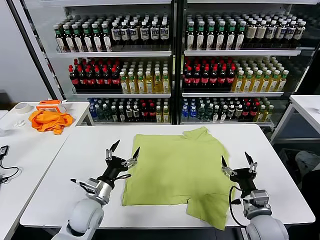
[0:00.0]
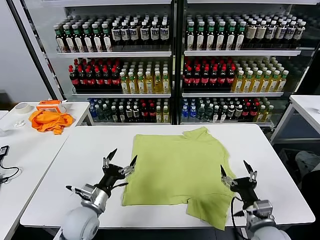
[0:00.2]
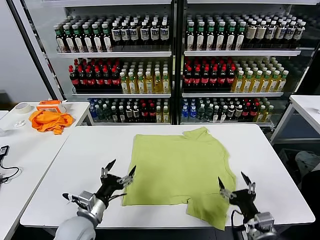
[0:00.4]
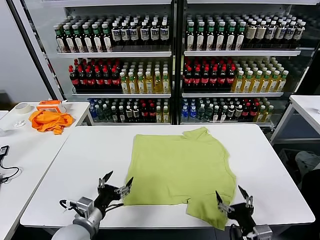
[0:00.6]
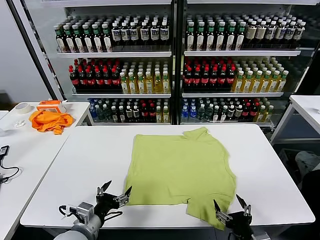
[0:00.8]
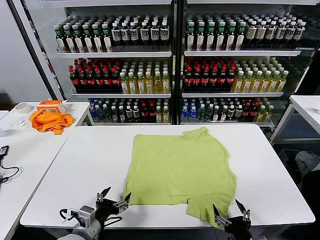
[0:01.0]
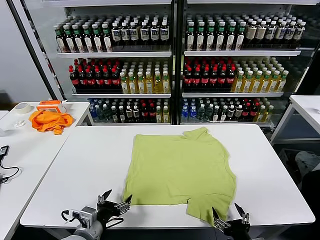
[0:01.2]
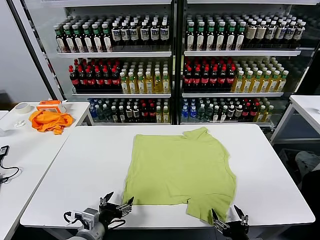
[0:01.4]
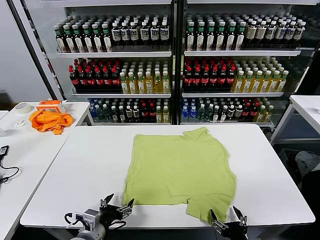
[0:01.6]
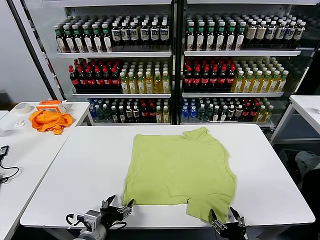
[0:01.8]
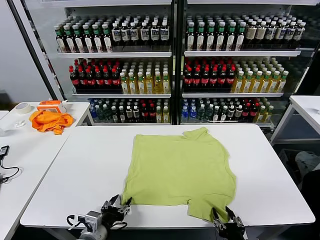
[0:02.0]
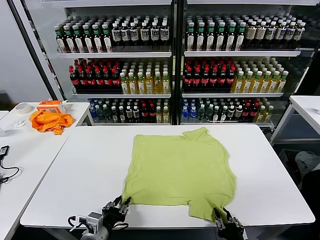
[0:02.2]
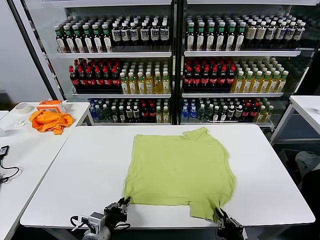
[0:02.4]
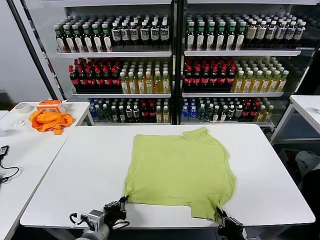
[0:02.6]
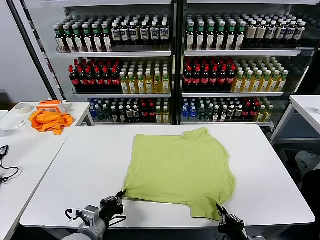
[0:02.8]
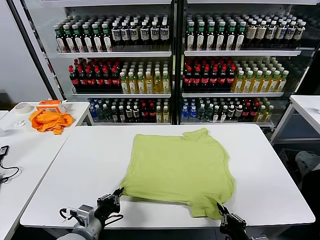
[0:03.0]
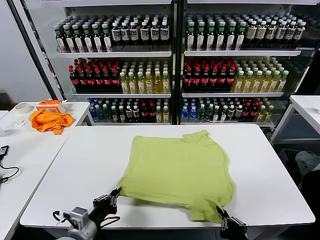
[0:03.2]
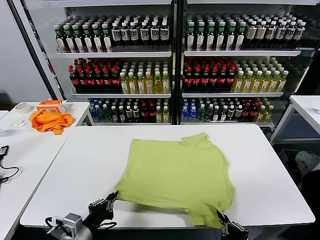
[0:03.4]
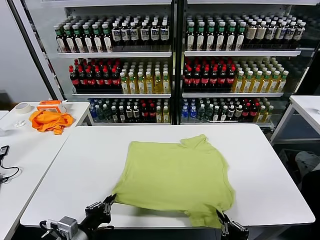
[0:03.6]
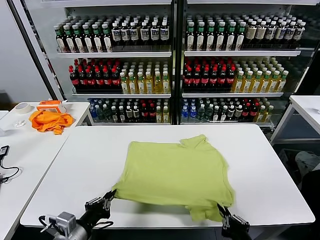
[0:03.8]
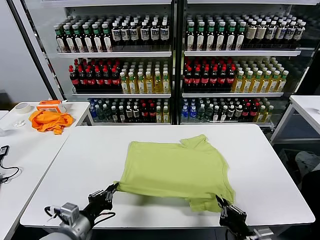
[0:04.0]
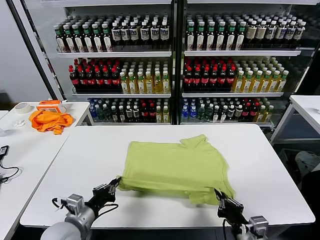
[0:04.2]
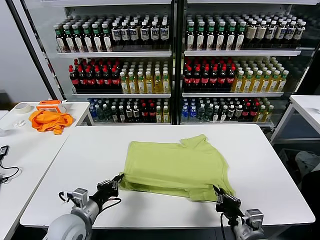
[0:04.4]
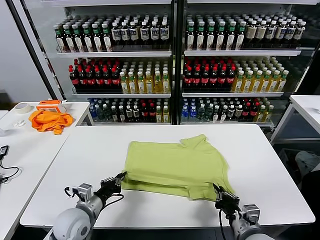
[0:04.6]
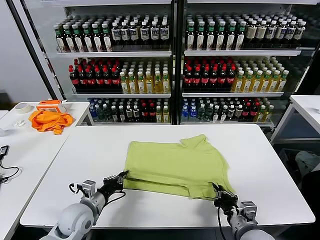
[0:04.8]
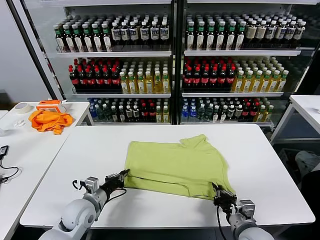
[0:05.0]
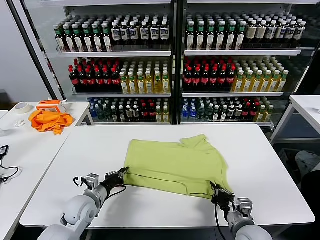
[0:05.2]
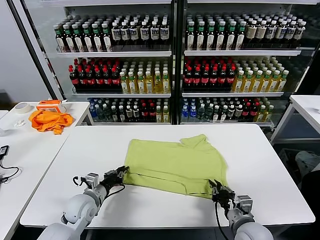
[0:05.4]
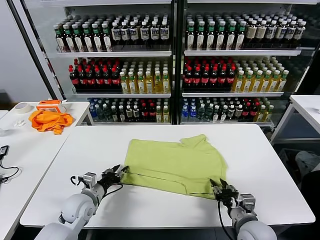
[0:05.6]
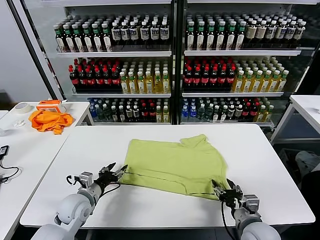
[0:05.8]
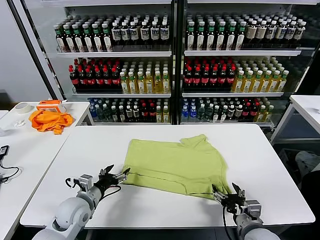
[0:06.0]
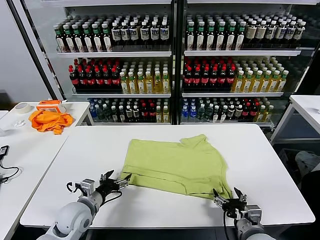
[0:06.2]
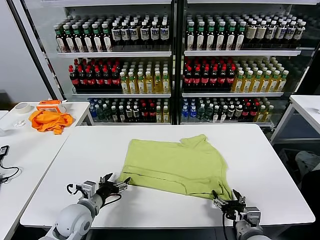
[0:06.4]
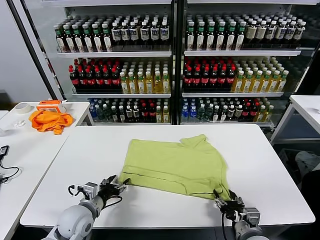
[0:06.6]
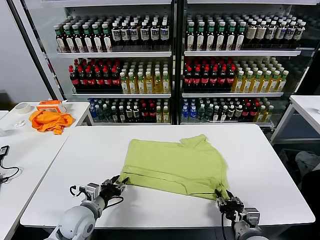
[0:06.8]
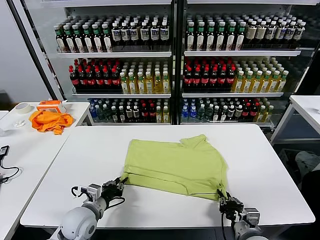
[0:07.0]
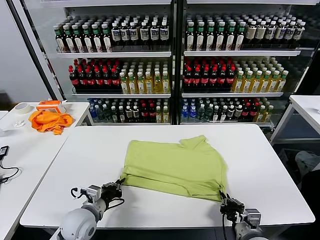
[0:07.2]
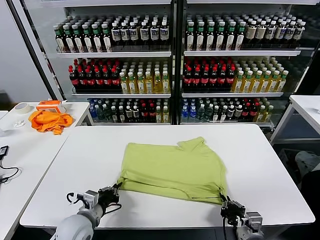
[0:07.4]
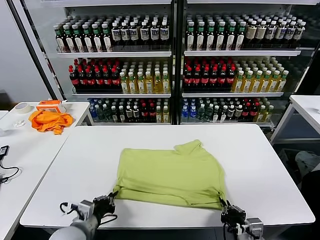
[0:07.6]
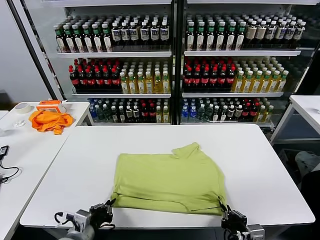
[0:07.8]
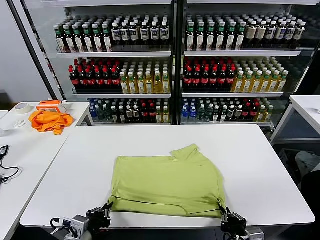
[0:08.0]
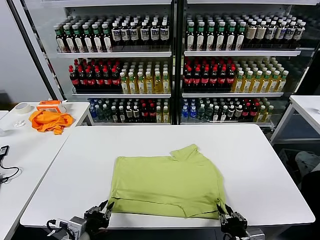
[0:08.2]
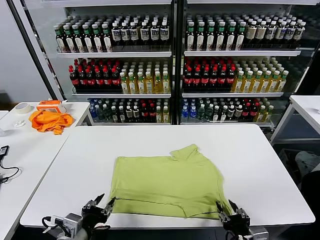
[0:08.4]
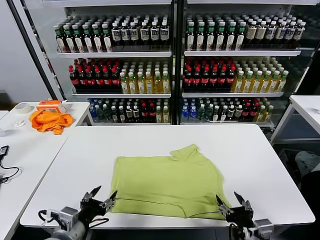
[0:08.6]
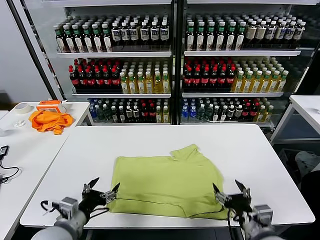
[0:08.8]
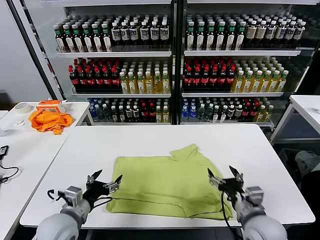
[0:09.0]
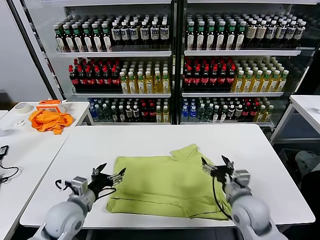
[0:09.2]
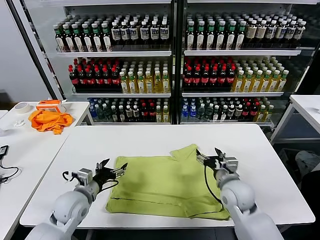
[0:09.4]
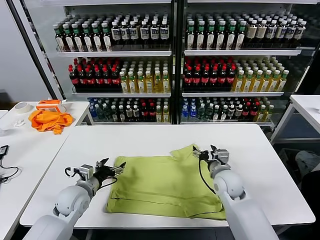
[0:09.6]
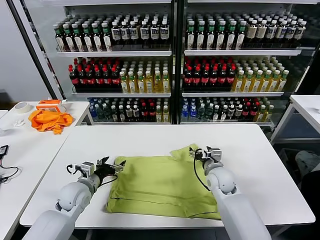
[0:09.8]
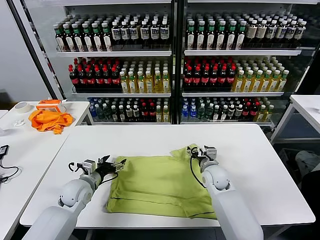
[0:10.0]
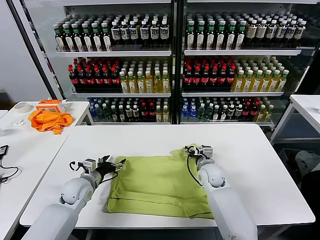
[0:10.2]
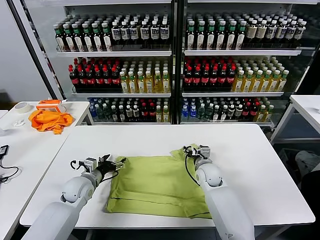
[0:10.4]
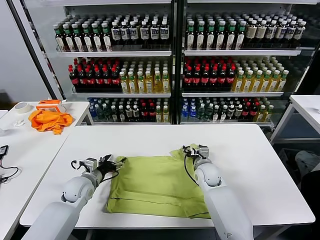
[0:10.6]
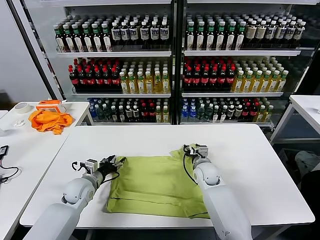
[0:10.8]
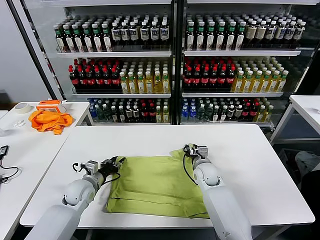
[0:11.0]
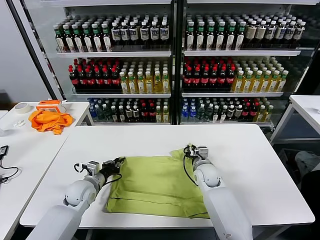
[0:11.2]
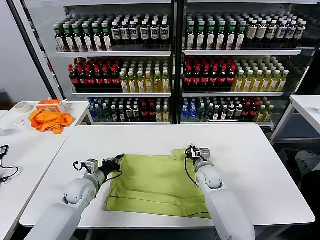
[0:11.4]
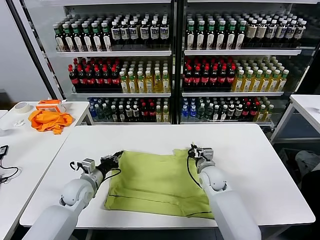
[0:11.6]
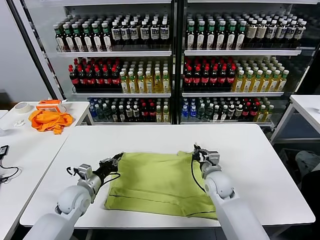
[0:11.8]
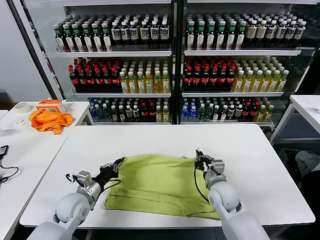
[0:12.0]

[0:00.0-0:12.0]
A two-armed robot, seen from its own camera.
Task of the whole recording: fold and organize the clothes.
Step, 0:00.0 to 0:02.4: use both grippers simultaneously to clamp the lower edge of the clothing fabric.
Step, 0:02.6 to 0:05.6: use both grippers to drag the lower edge of the fabric forward and fold it over the upper edge.
Step, 0:05.8 to 0:08.2: Drag the clothes downward with both gripper.
Step, 0:08.6 to 0:11.2: use both grippers simultaneously to clamp the upper edge of the clothing fabric.
0:01.6 to 0:03.0: The left gripper closes up; the right gripper closes.
0:03.0 to 0:04.4: The right gripper shifts roughly 10 cm forward; the left gripper is displaced forward by approximately 5 cm.
0:04.4 to 0:06.0: The right gripper opens up. The left gripper heads forward, covering about 5 cm, and opens its fingers.
0:06.0 to 0:07.6: The right gripper shifts some 5 cm backward, and closes its fingers. The left gripper goes some 10 cm backward, and closes up.
0:07.6 to 0:09.0: The right gripper shifts approximately 10 cm forward and upward, and opens. Meanwhile the left gripper travels backward and back again, approximately 5 cm each way, and opens up.
0:09.0 to 0:10.4: The two grippers go about 20 cm forward and downward.
0:10.4 to 0:12.0: The left gripper heads backward, covering some 5 cm, and closes up. The right gripper is displaced backward by roughly 10 cm, and closes its fingers.

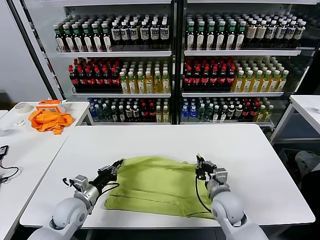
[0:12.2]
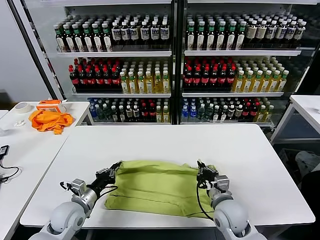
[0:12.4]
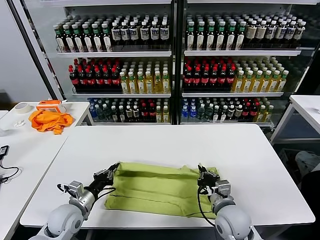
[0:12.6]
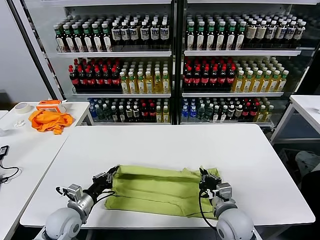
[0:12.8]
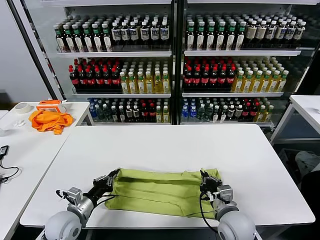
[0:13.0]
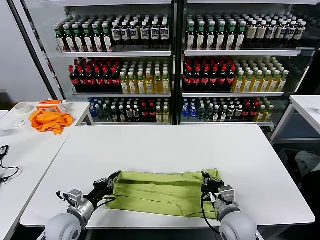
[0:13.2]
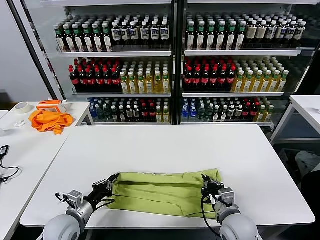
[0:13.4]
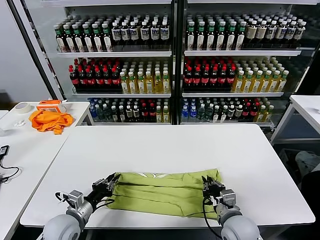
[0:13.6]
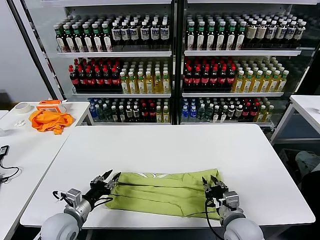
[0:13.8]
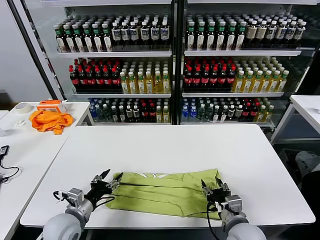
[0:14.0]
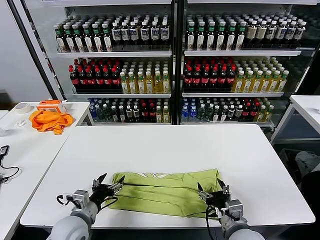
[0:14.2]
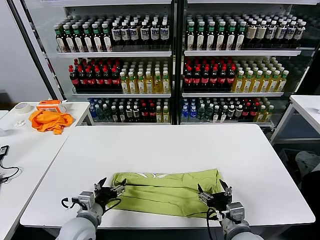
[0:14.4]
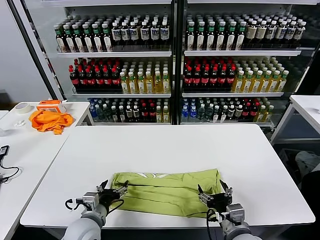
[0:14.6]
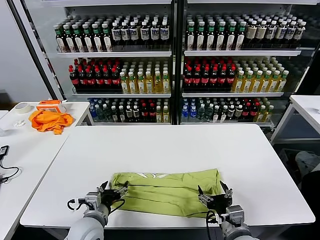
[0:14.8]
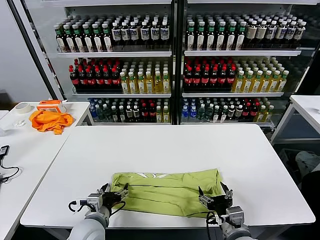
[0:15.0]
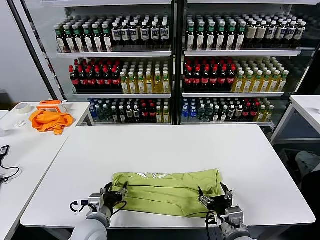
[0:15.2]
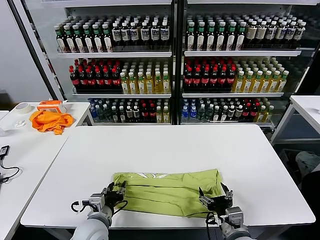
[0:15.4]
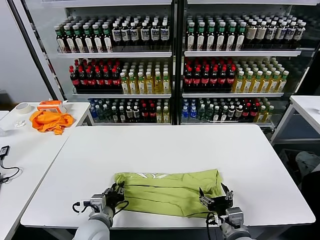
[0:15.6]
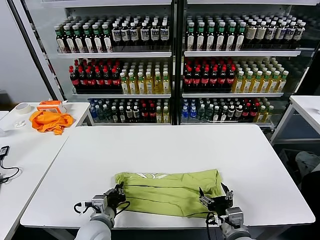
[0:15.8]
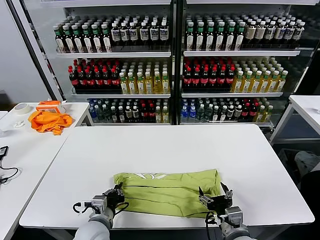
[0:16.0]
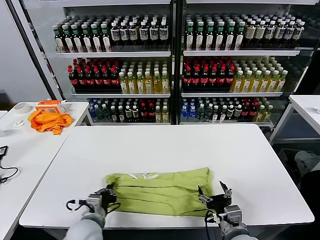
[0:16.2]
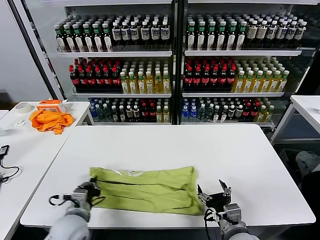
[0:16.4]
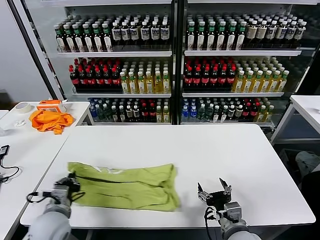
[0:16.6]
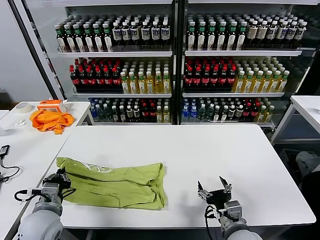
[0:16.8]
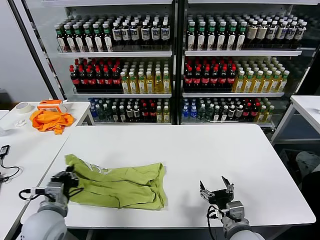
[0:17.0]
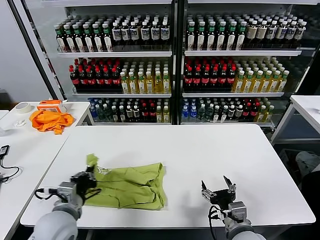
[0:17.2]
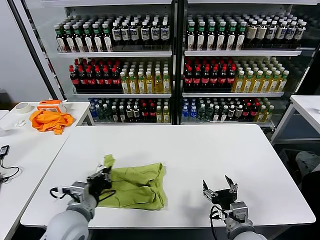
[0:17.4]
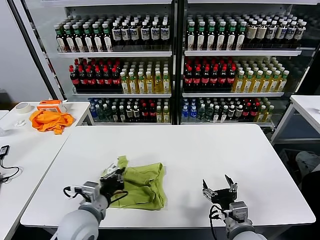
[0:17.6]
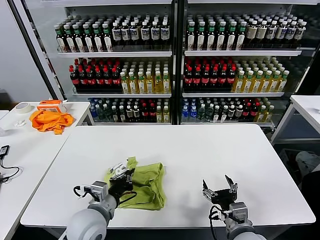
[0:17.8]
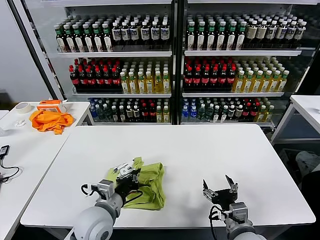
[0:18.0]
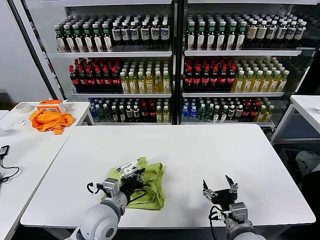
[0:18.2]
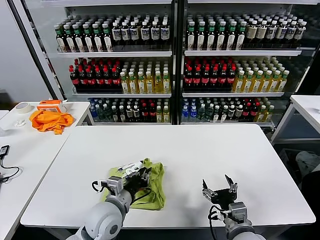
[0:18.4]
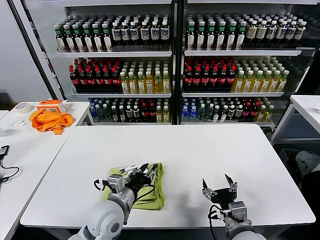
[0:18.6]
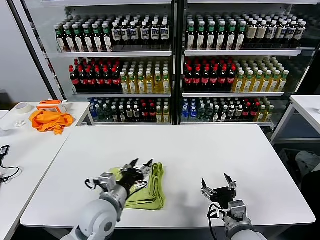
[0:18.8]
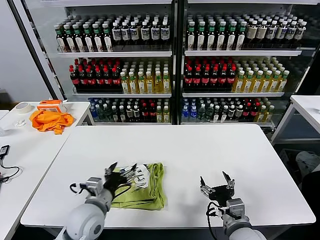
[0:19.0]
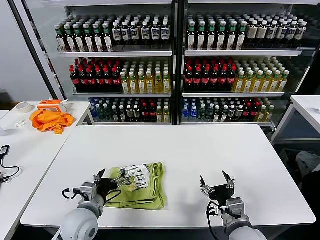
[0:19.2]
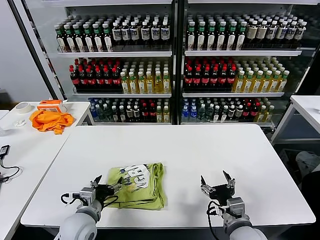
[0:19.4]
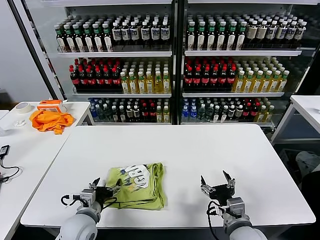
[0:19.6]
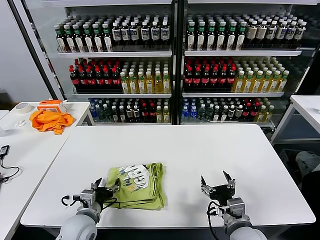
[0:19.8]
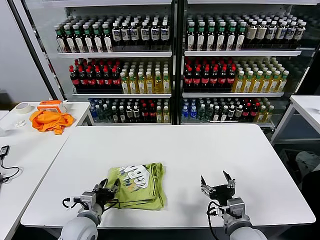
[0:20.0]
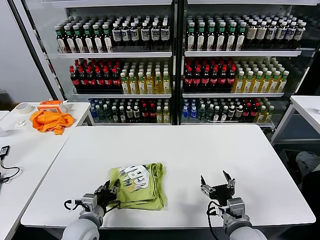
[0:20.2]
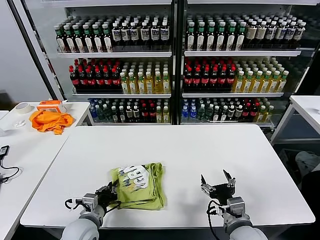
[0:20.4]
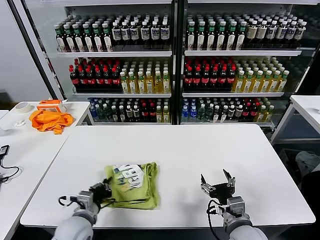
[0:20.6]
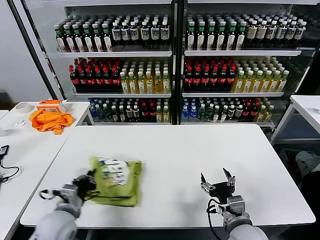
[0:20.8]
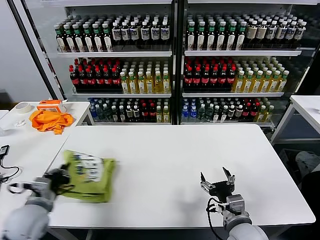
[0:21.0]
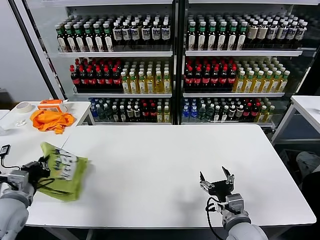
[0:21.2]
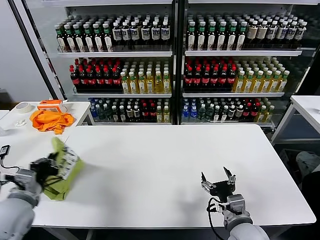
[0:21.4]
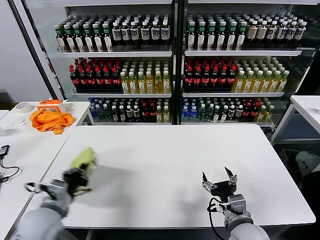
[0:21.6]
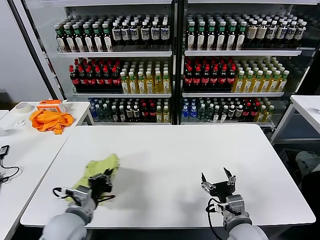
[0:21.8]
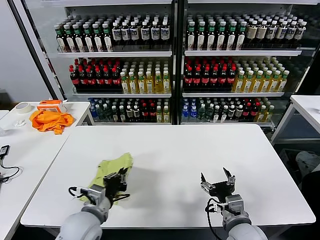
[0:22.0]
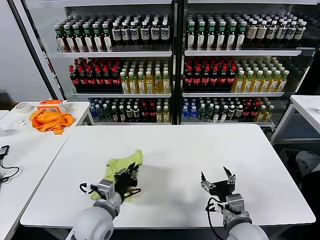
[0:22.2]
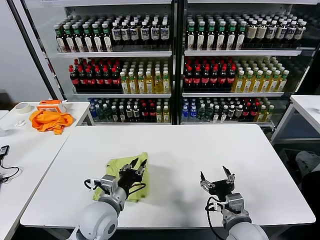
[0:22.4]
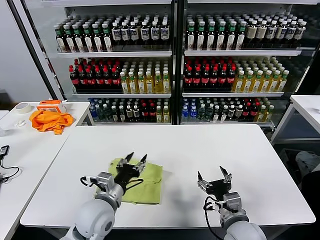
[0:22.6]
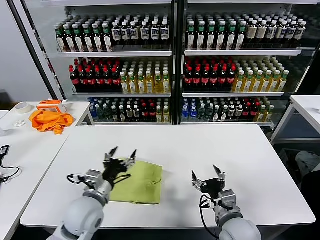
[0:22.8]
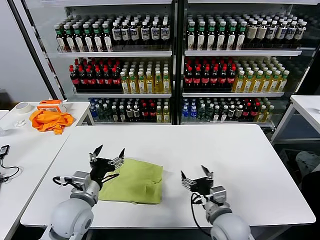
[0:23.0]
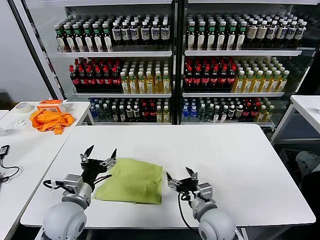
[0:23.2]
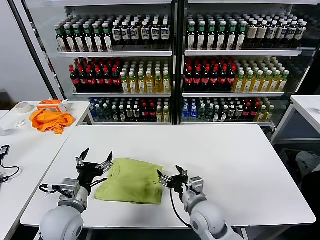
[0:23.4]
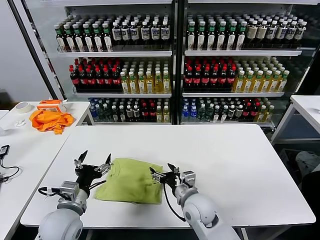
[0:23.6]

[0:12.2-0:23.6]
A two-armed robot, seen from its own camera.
Task of the whole recording: fold and organize the clothes.
Step, 0:12.2 to 0:13.8: use both grippers to drag the upper edge of the fabric backward and fold it over the lower edge.
Step, 0:14.0 to 0:15.8: use the left gripper to clamp the left edge of the fabric.
Step, 0:16.0 to 0:18.6: use the left gripper to drag the left edge of the fabric to the left and folds it over the right edge.
Step, 0:19.0 to 0:22.4: Flip the folded clothes over with left gripper.
0:12.2 to 0:13.6: The grippers both shift backward by some 5 cm.
0:13.6 to 0:15.0: The right gripper heads backward, covering roughly 5 cm, and opens up. The left gripper goes some 10 cm to the right, and opens its fingers.
0:15.0 to 0:16.4: The left gripper closes.
0:16.4 to 0:17.8: The left gripper travels to the right and upward by about 10 cm.
0:17.8 to 0:19.4: The left gripper travels downward by about 5 cm, and opens.
0:19.4 to 0:20.8: The left gripper closes.
0:20.8 to 0:22.2: The left gripper goes about 10 cm to the right.
0:22.2 to 0:23.6: The left gripper shifts some 10 cm to the left, and opens its fingers, while the right gripper shifts approximately 15 cm to the left and forward.
